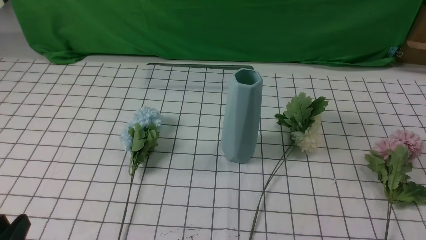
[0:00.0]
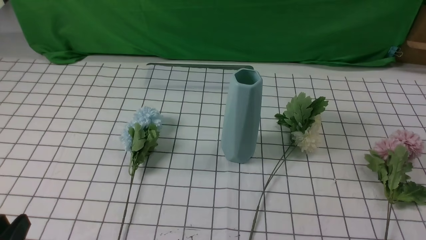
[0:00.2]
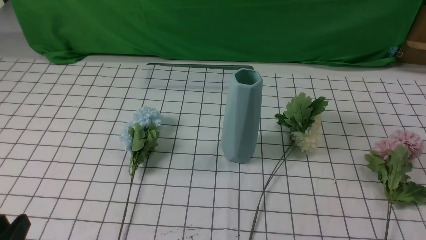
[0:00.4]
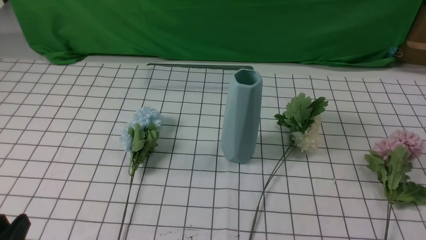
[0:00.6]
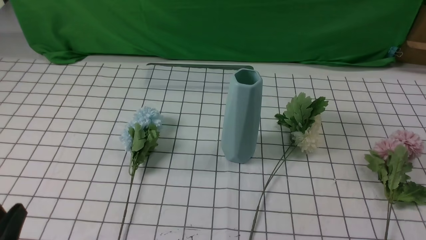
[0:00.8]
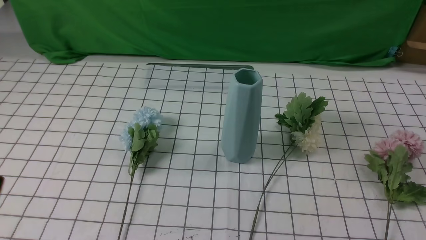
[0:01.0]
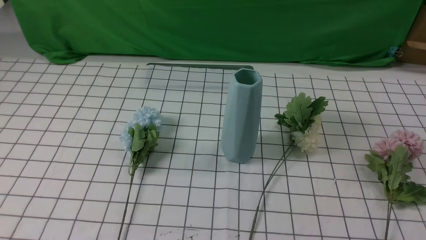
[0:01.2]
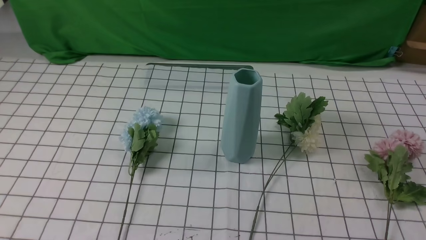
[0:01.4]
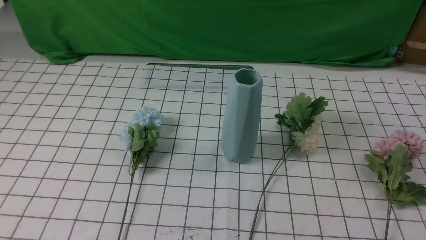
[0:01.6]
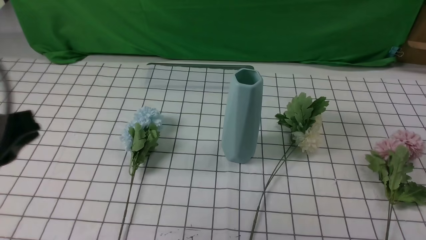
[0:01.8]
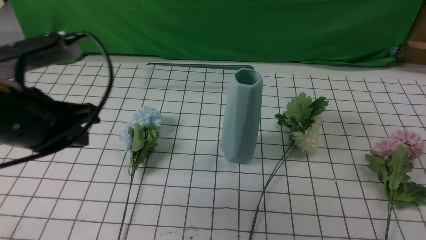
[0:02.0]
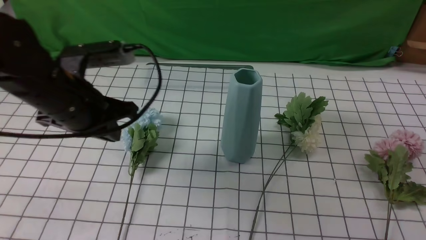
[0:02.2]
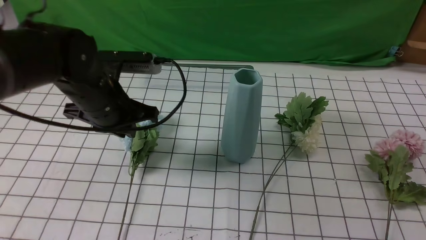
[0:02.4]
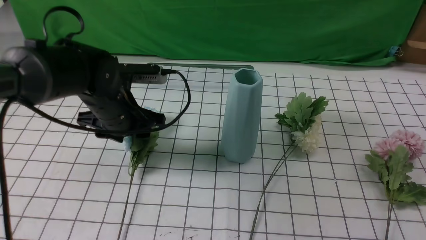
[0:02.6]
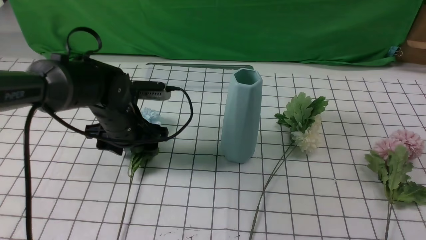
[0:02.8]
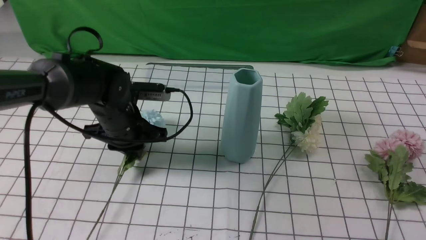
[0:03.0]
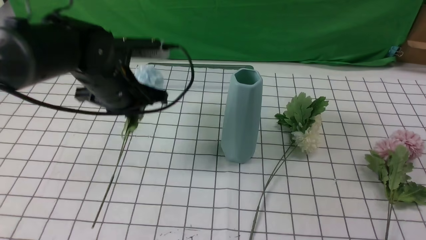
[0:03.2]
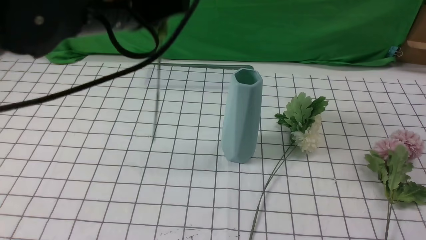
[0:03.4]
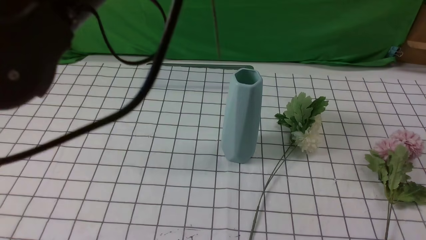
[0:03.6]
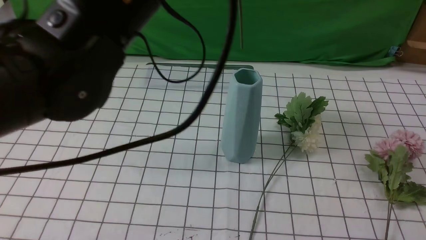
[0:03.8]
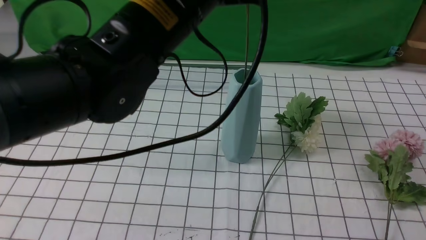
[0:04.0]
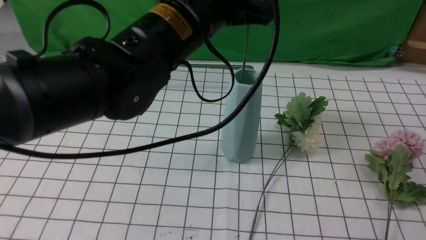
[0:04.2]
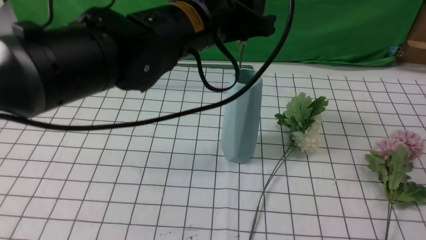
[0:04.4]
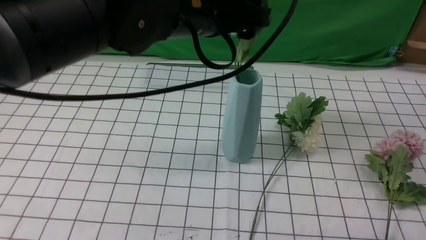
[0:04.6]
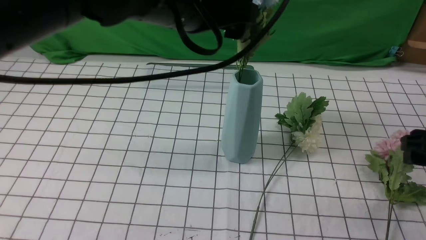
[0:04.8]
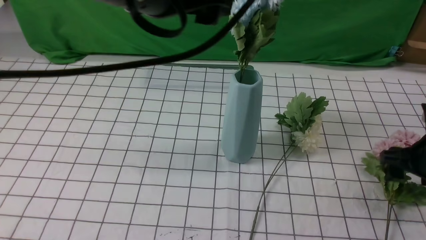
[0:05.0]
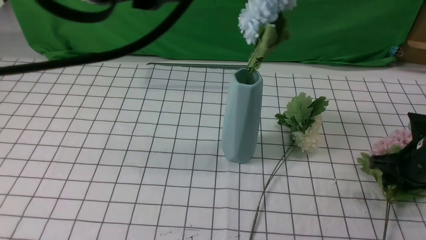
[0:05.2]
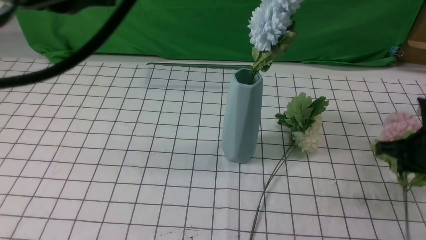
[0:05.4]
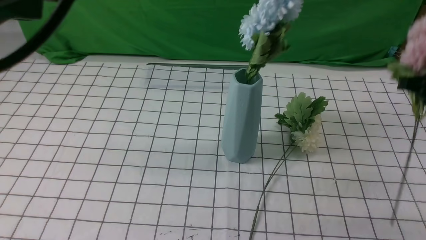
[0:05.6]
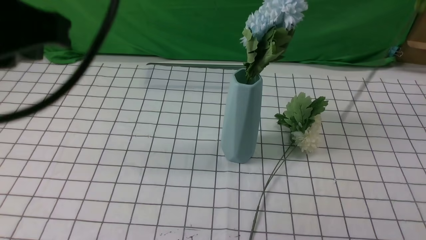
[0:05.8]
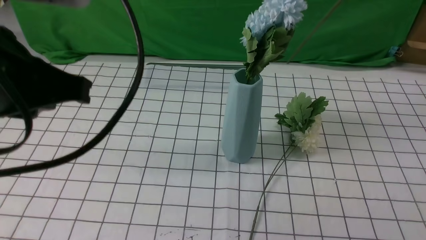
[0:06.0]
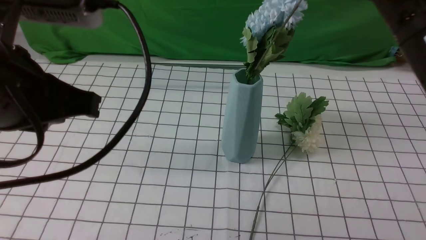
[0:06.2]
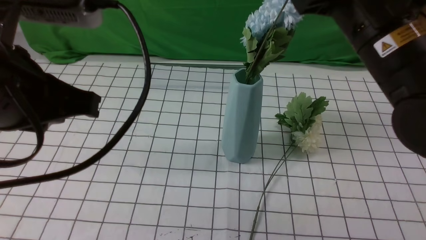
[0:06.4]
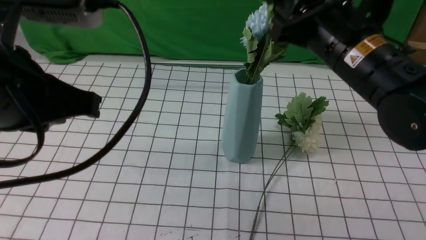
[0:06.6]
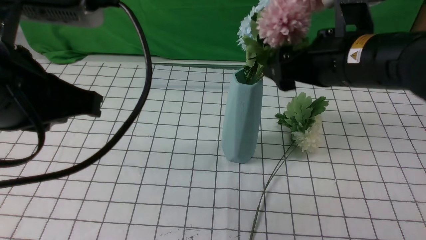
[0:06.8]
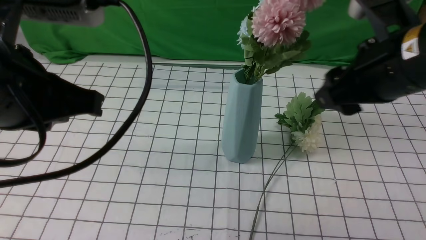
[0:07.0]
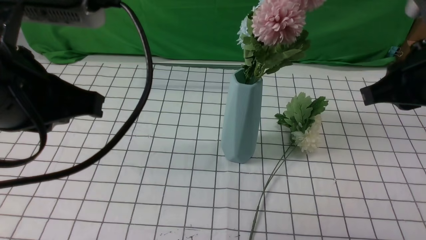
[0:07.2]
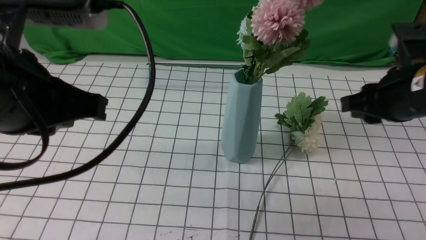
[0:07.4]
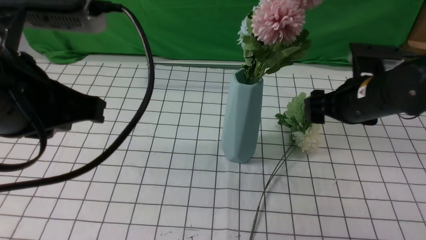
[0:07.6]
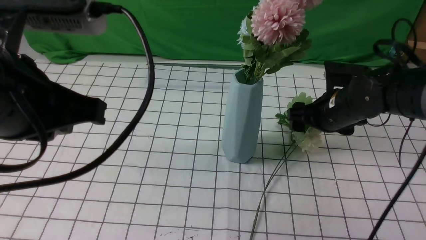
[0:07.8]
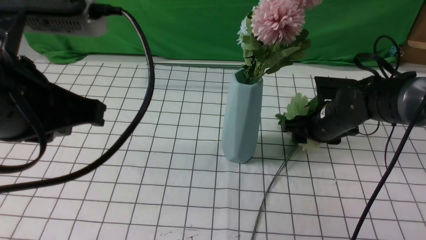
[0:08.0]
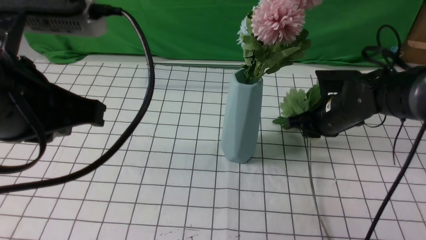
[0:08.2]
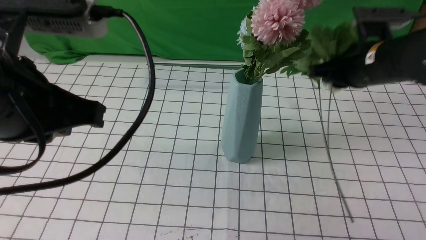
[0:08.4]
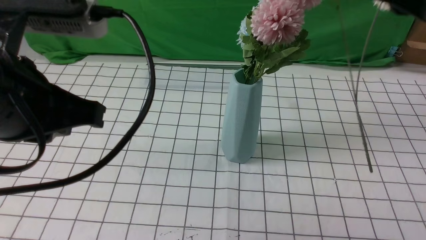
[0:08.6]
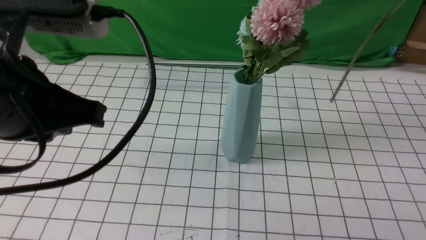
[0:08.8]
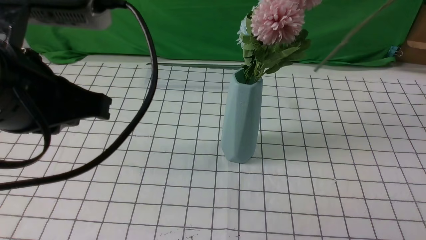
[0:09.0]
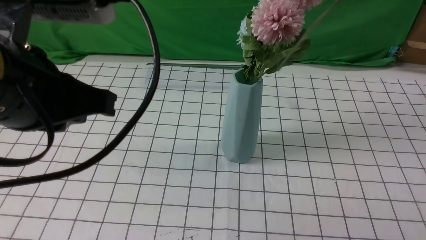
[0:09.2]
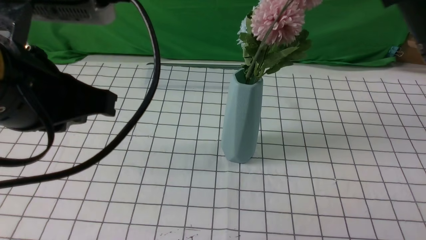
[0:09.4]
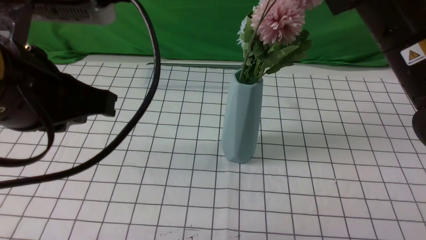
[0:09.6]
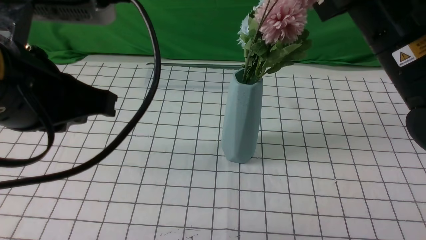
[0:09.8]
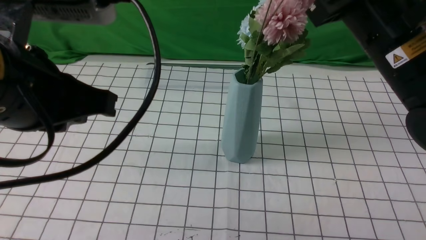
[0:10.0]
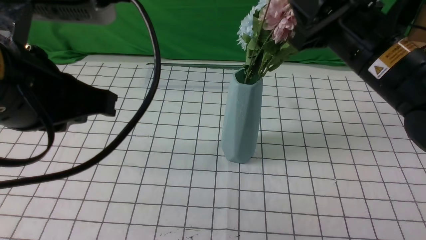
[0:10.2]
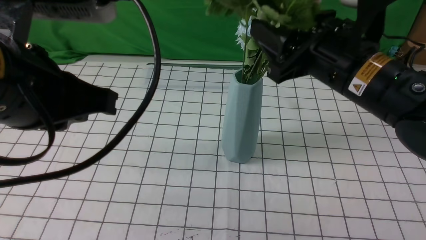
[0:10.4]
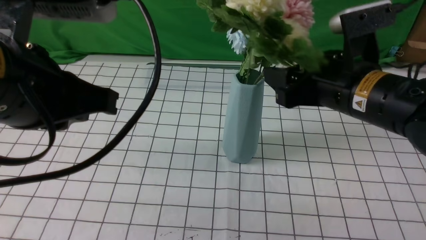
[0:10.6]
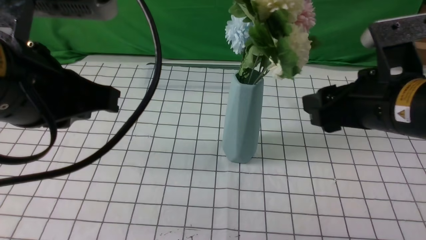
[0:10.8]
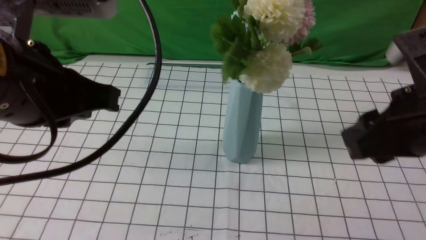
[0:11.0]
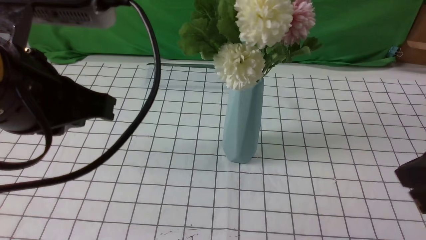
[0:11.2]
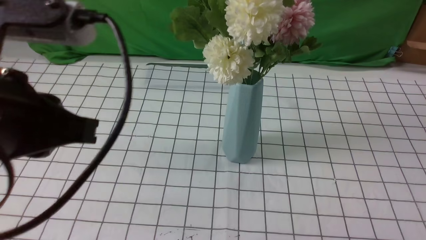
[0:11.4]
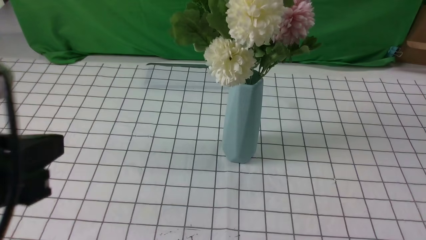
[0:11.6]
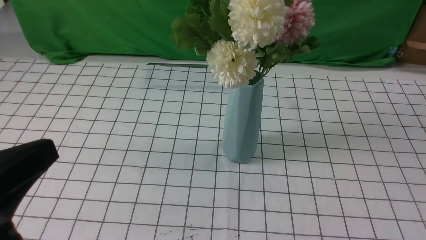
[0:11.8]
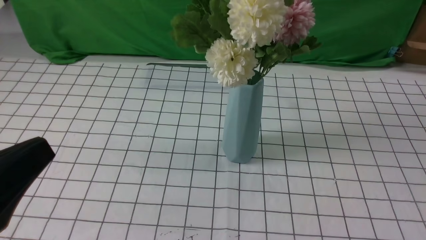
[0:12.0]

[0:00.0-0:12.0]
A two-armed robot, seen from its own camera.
Task of the whole recording: insert the flowers into the vase on the table with the white tablecloth.
Step, 0:00.0 to 0:02.8: use the left arm to grab a bunch of fresh flowers.
Step, 0:03.0 to 0:04.8: use the left arm to insert the flowers into the vase.
Step, 0:05.0 to 0:05.2: use the right arm to grab a bunch of fresh flowers.
Step, 0:05.4 to 0:06.8: use the right arm to insert the flowers into the vase.
Step, 0:07.0 to 0:08.0: use the right arm to grab a bunch of fresh flowers.
Step, 0:08.2 to 0:10.6: use the right arm to insert the flowers into the vase.
0:00.0 to 0:01.6: The left gripper goes about 15 cm upward, and closes.
0:01.6 to 0:03.0: The right gripper moves upward and forward, some 15 cm, and opens, while the left gripper goes roughly 30 cm forward and downward.
0:03.0 to 0:04.4: The left gripper is displaced upward and to the right by about 20 cm. The right gripper ends up approximately 5 cm from where it was.
0:04.4 to 0:06.0: The left gripper is displaced backward and to the left by roughly 20 cm, and closes its fingers. The right gripper goes roughly 15 cm to the left and upward, and closes up.
0:06.0 to 0:07.6: The right gripper heads downward and forward, covering some 20 cm, and opens.
0:07.6 to 0:09.0: The right gripper shifts roughly 25 cm upward and backward, and closes.
0:09.0 to 0:10.4: The right gripper heads forward, to the left and downward, covering approximately 15 cm, and opens its fingers.
0:10.4 to 0:12.0: The left gripper shifts approximately 15 cm backward, downward and to the left. The right gripper is displaced backward and to the right by roughly 35 cm, and closes its fingers.

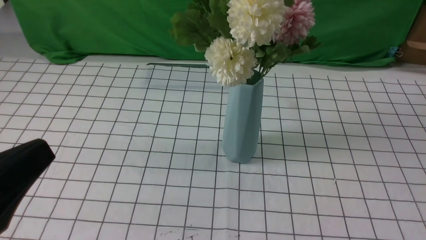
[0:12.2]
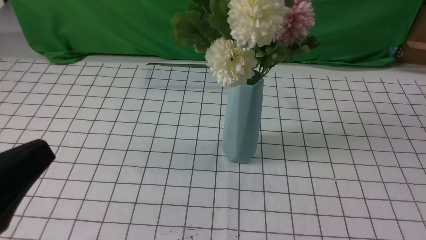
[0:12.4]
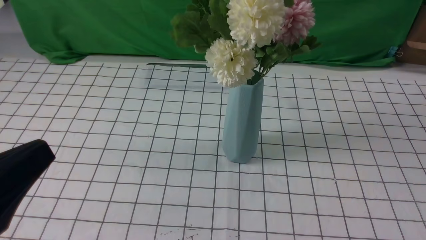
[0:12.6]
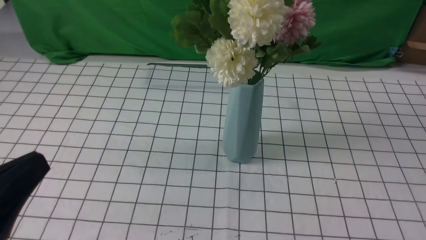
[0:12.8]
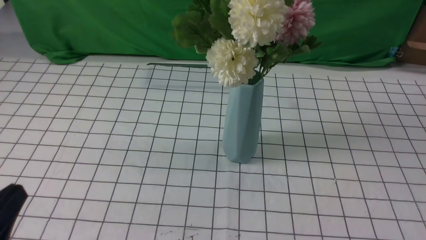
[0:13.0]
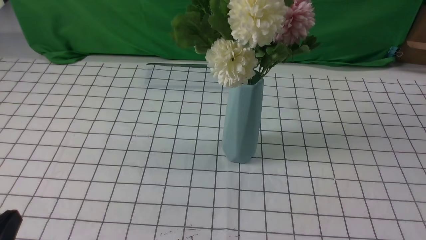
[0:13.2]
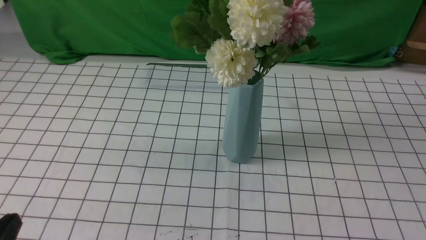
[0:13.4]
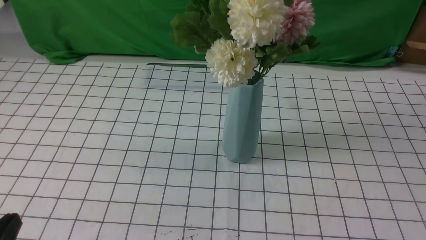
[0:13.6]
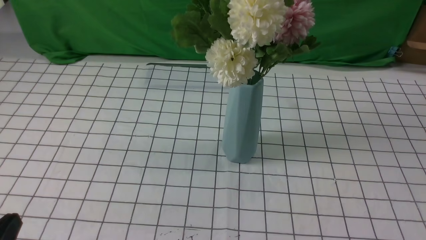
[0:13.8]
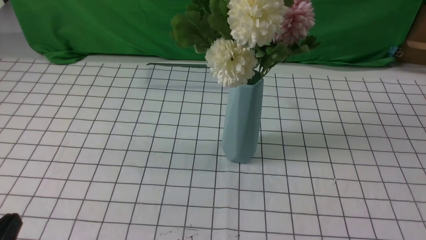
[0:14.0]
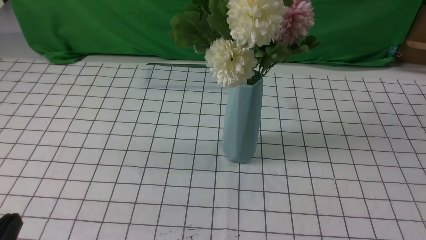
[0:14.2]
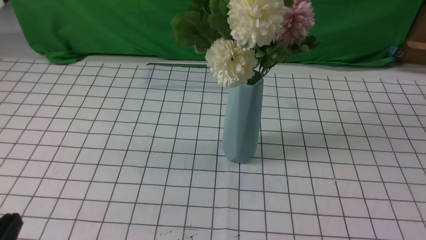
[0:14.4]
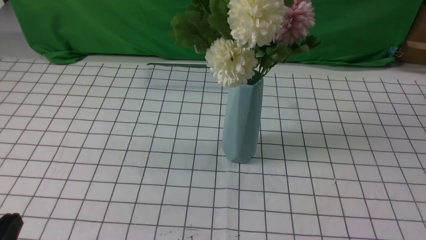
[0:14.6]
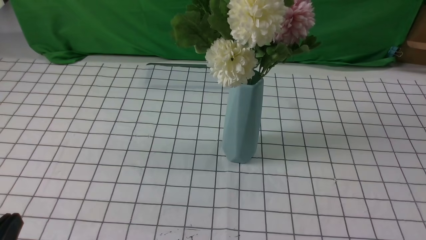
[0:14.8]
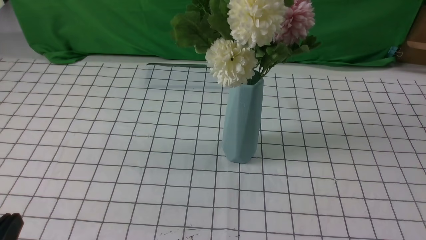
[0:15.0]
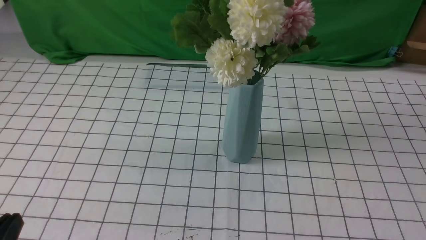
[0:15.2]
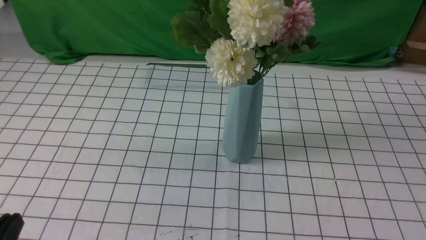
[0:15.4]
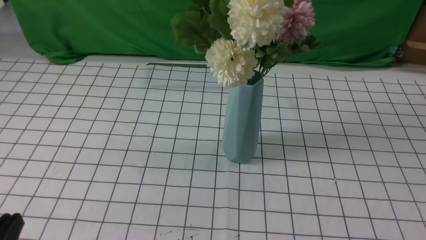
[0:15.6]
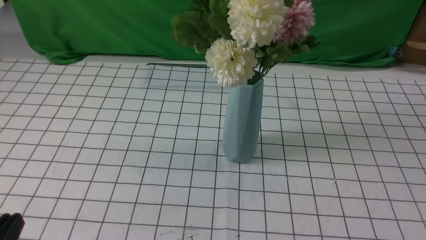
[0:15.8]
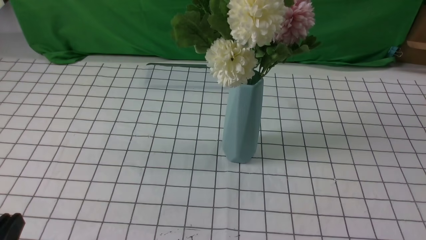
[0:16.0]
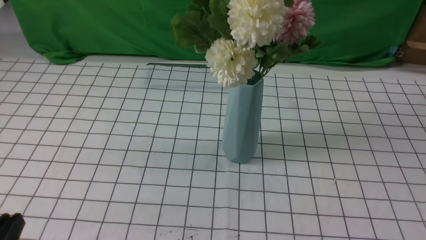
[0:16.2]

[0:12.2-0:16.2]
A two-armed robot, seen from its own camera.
Task of the whole recording: insert the flowers into the vase on the table with the white tablecloth.
0:12.2 to 0:13.6: The left gripper shifts roughly 15 cm downward.
0:14.8 to 0:16.2: Both grippers stay put.
